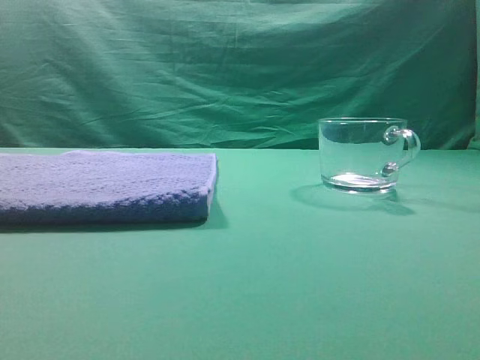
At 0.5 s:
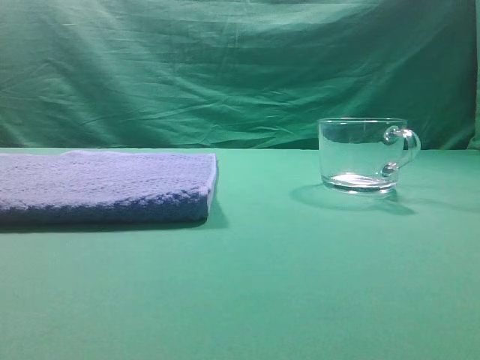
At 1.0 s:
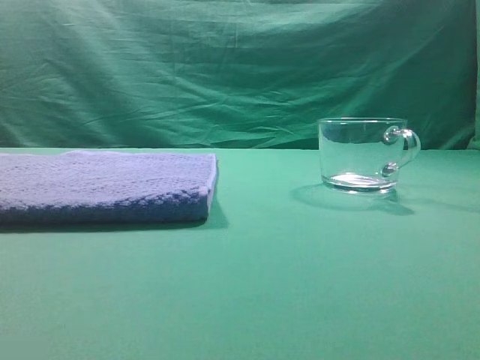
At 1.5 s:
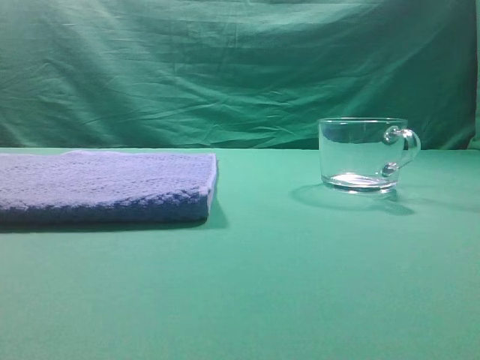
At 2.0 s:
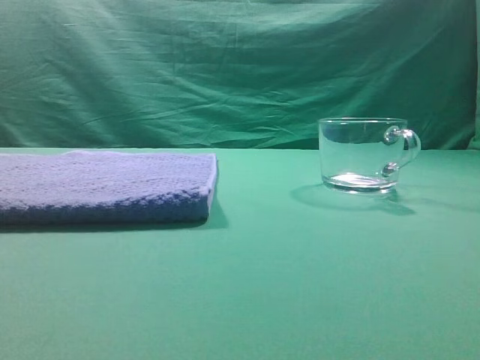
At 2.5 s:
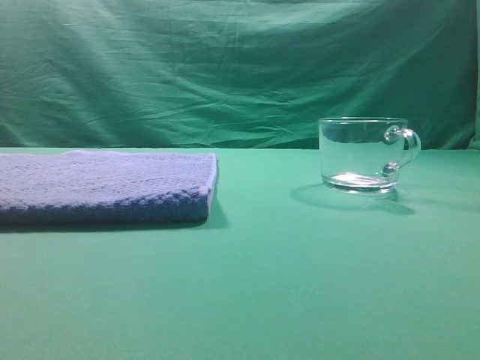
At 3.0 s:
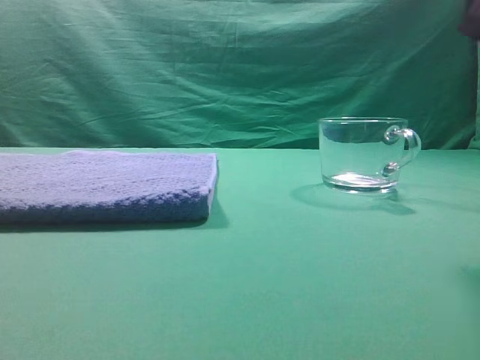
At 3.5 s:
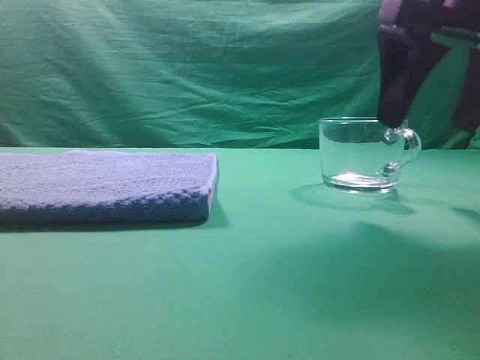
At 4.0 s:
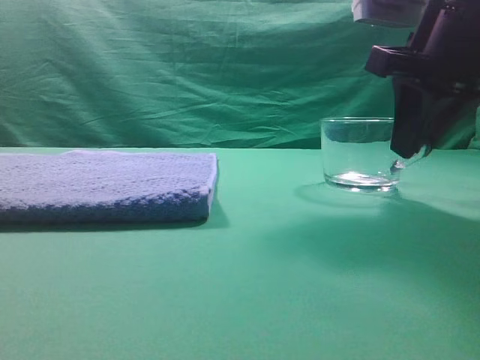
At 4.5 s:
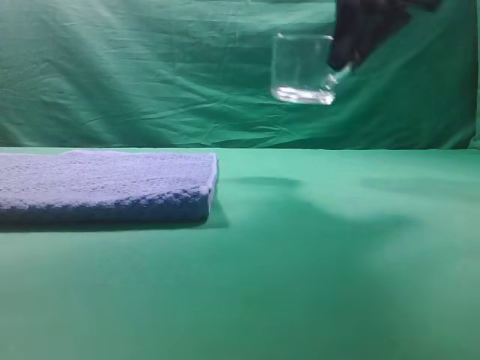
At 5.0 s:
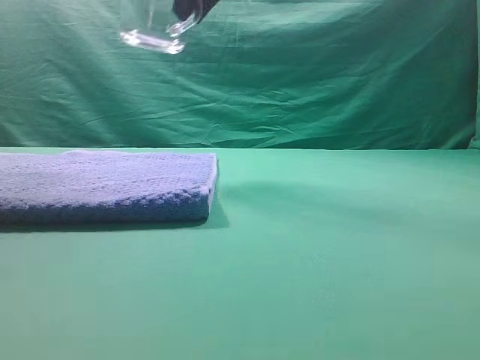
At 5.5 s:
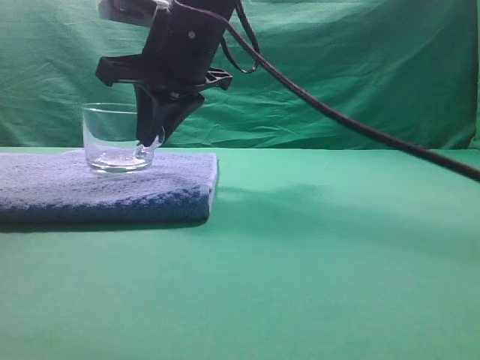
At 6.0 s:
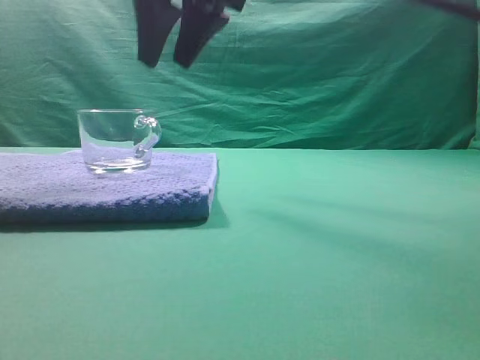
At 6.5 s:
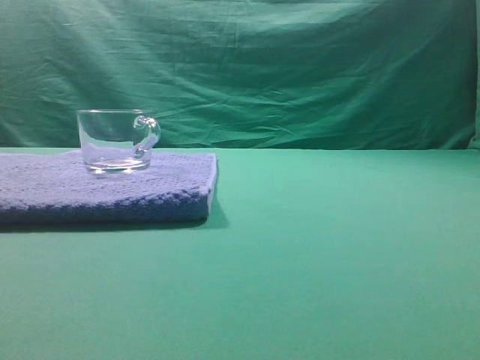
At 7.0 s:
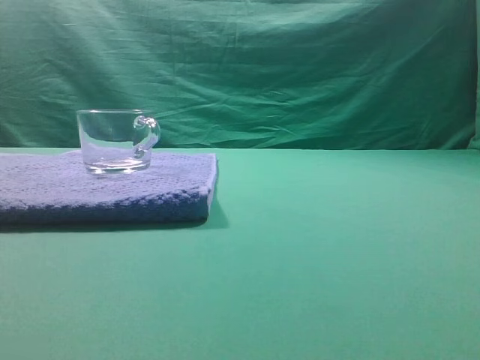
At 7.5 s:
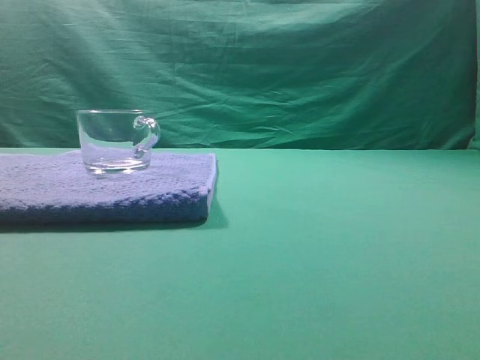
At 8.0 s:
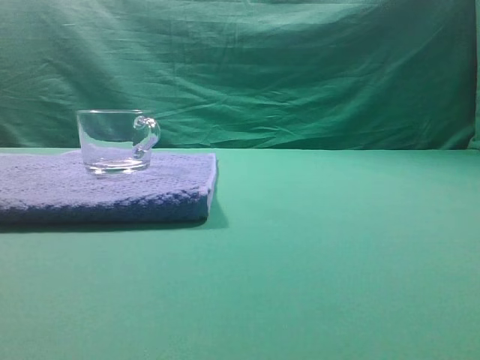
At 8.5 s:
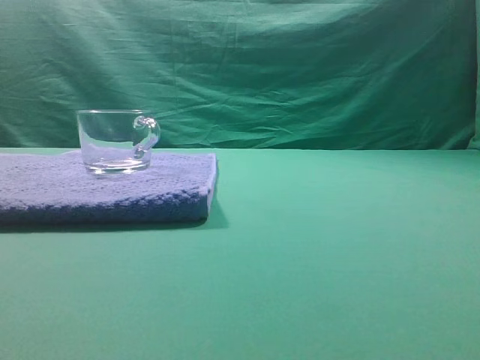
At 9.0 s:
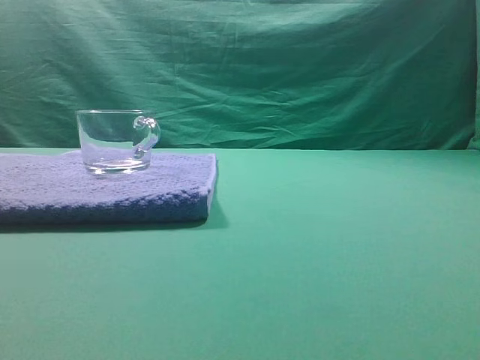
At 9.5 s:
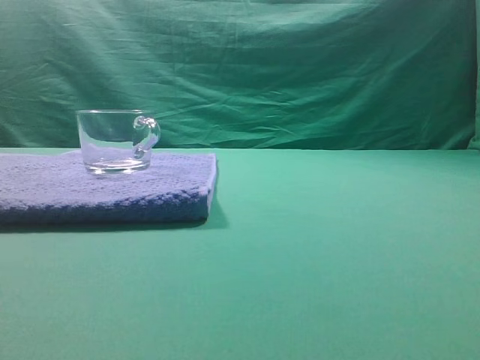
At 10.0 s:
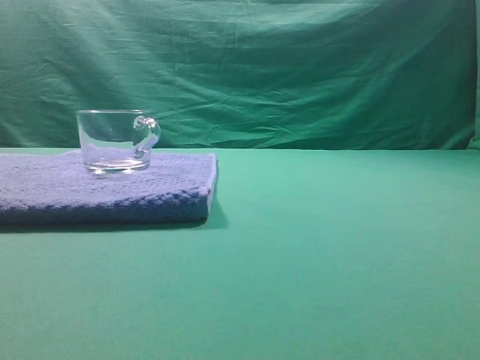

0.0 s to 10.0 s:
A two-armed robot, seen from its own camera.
Task of the whole recording: grasp the transparent glass cup and place it within the blue towel.
Step, 0.0 to 4.0 s: Grasp the transparent glass cup.
Step, 4.5 to 5.5 s: Place the glass cup on the blue zone.
